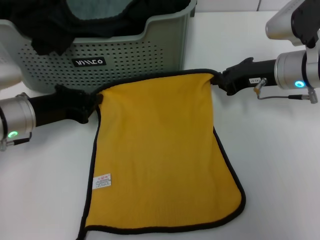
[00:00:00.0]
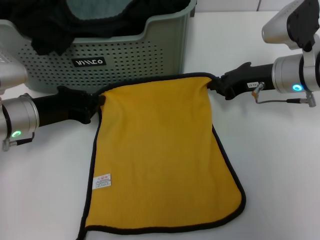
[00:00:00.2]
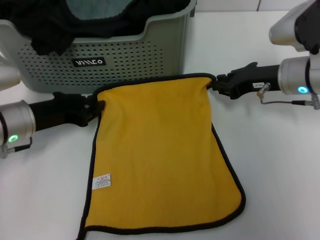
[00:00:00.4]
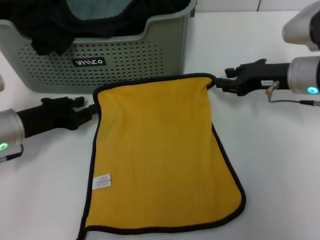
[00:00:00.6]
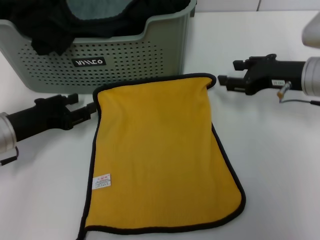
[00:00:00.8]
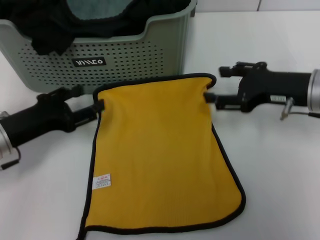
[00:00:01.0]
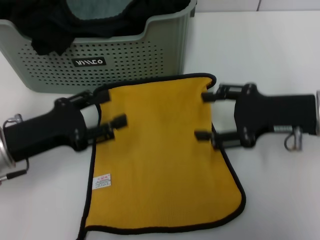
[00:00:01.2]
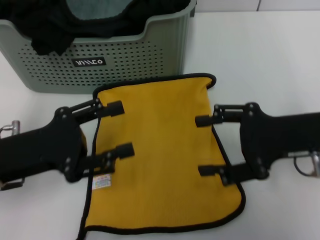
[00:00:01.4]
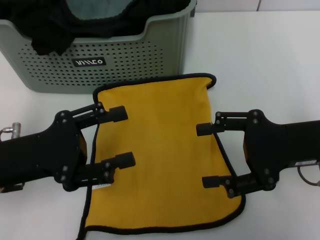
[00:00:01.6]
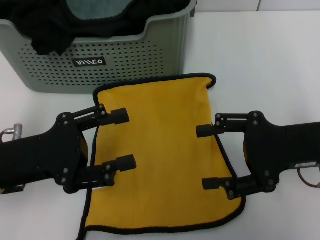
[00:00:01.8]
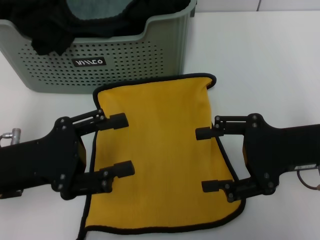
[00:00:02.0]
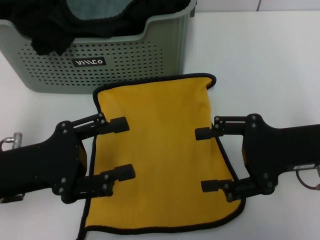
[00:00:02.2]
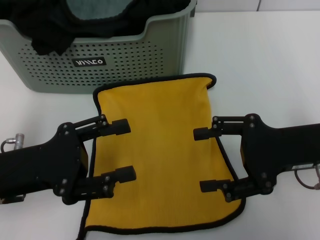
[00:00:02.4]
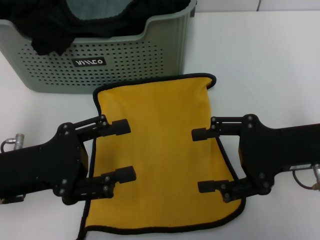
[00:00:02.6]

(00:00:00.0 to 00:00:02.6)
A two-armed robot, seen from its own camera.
Task of the whole recording: pick up the towel from the storage box and lay it flat on the table.
00:00:00.0 - 00:00:01.2: Both grippers move backward, roughly 10 cm. The right gripper opens. Meanwhile the left gripper opens its fingers.
